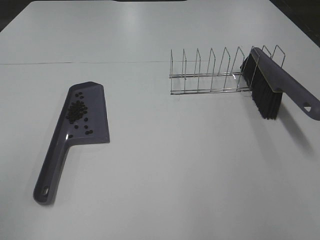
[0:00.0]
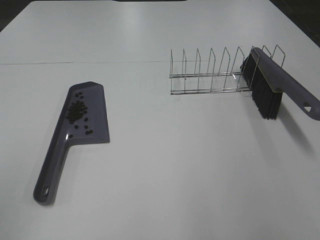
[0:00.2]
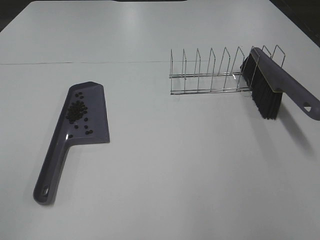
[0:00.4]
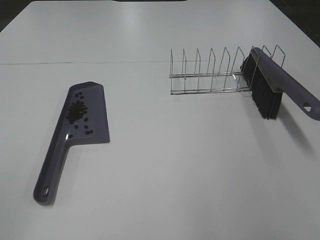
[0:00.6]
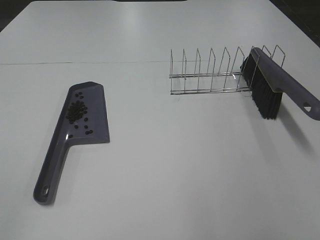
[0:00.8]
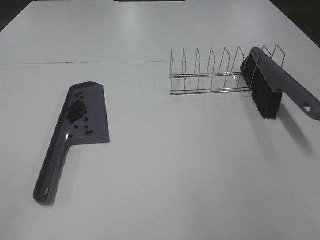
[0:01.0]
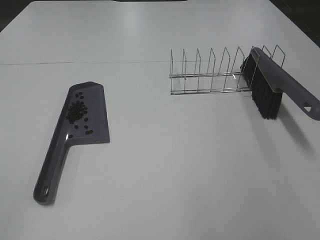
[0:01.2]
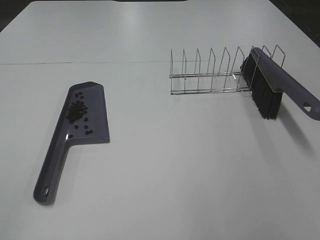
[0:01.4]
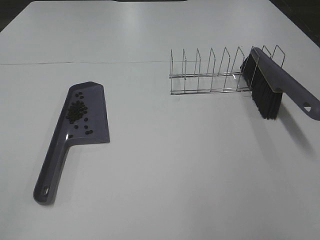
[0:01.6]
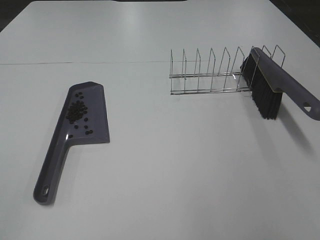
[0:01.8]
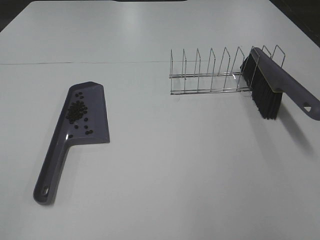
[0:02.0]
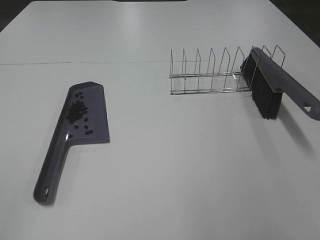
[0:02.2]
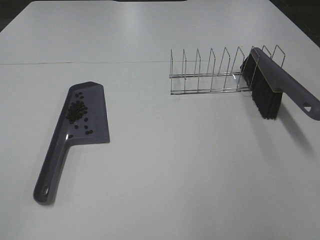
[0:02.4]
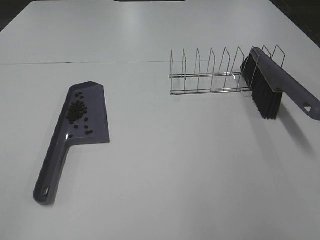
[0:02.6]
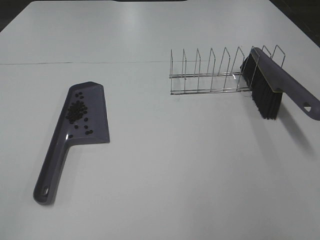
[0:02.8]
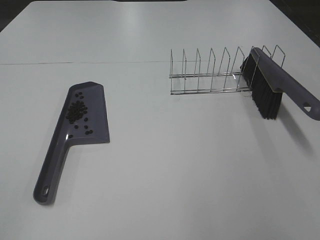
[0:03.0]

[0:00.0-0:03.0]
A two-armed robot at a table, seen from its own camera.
Task of the whole recording: Sweep Coffee Bean.
0:01.6 to 0:03.0: The two grippers keep their place.

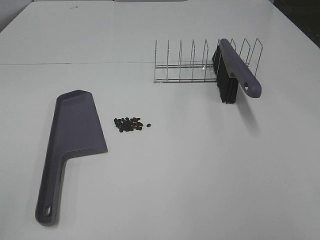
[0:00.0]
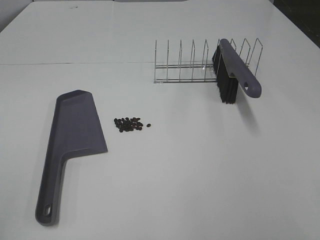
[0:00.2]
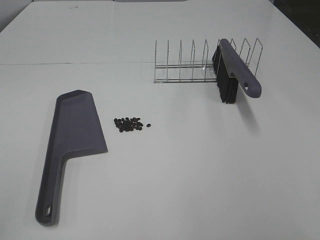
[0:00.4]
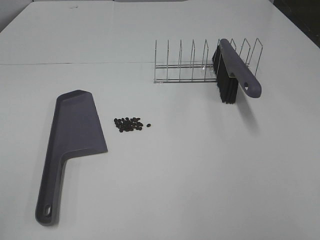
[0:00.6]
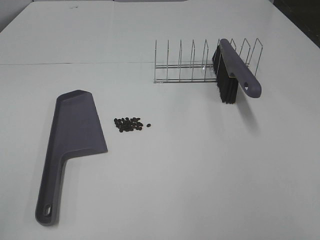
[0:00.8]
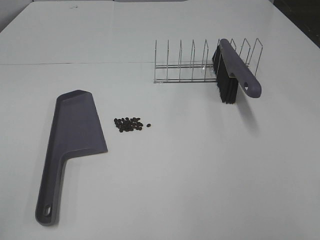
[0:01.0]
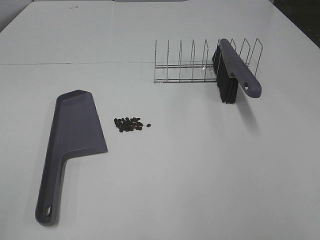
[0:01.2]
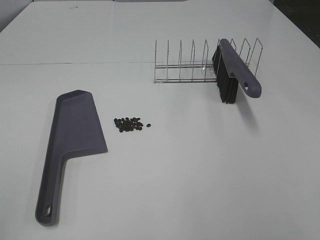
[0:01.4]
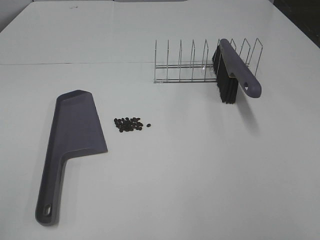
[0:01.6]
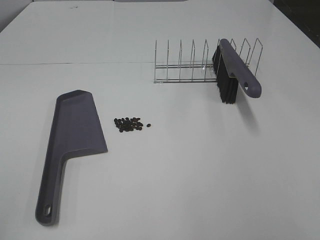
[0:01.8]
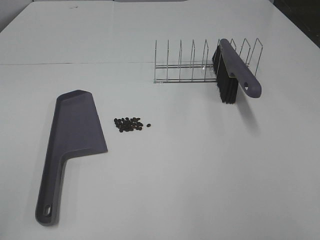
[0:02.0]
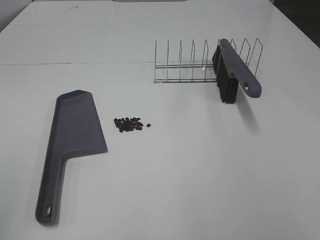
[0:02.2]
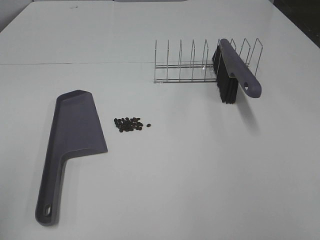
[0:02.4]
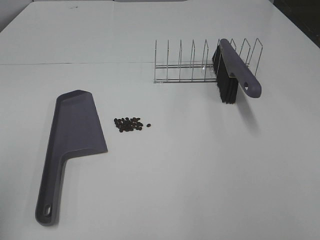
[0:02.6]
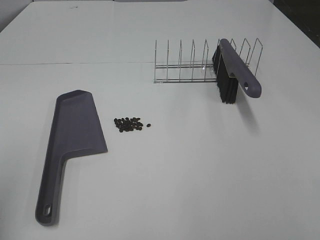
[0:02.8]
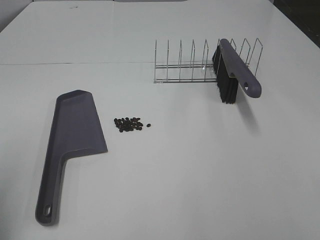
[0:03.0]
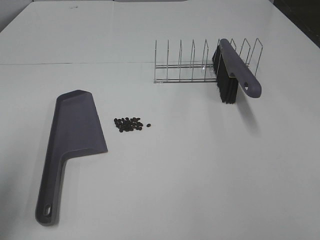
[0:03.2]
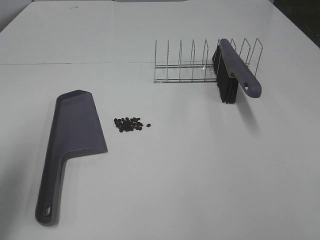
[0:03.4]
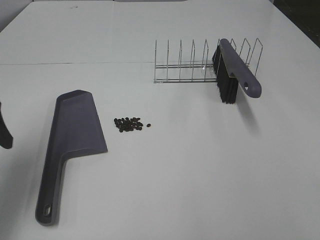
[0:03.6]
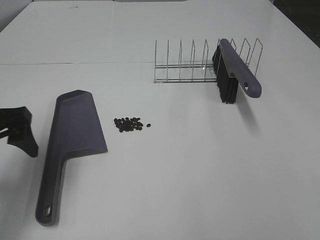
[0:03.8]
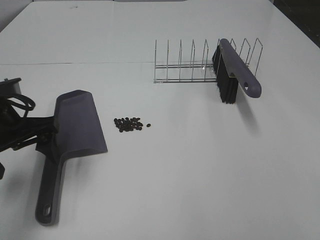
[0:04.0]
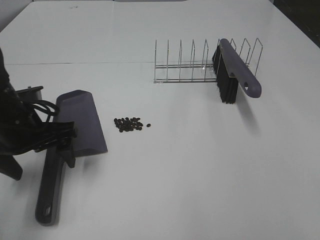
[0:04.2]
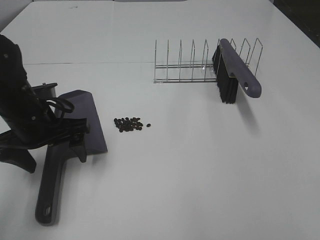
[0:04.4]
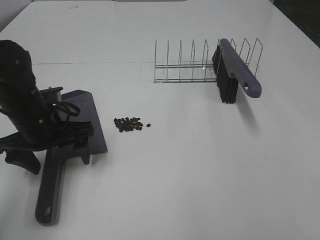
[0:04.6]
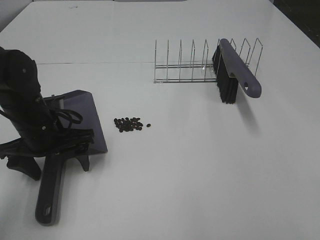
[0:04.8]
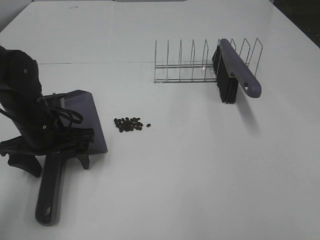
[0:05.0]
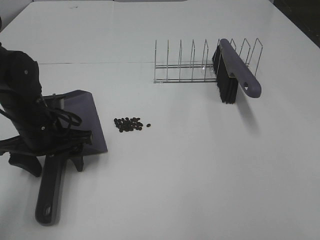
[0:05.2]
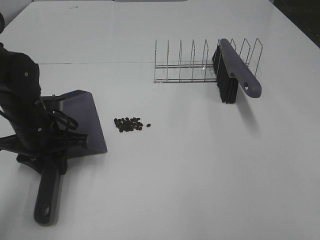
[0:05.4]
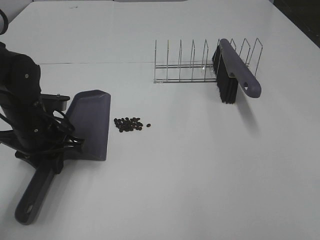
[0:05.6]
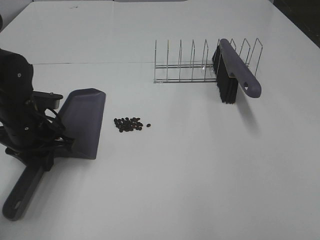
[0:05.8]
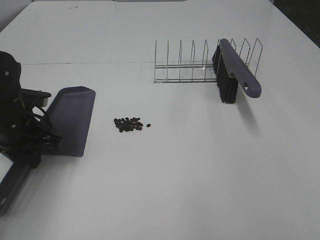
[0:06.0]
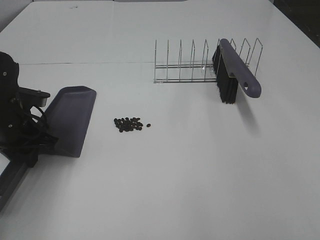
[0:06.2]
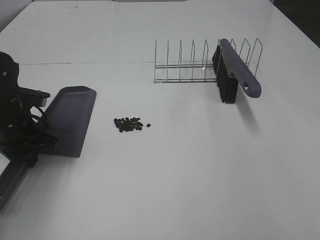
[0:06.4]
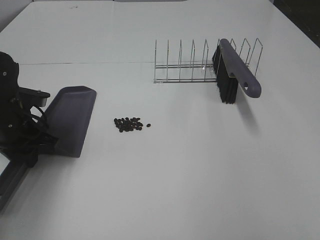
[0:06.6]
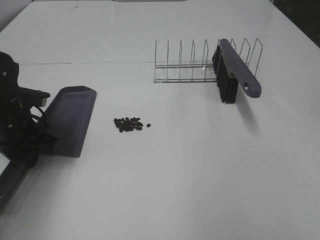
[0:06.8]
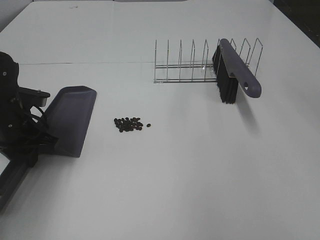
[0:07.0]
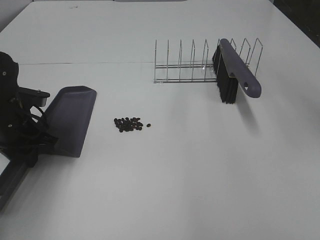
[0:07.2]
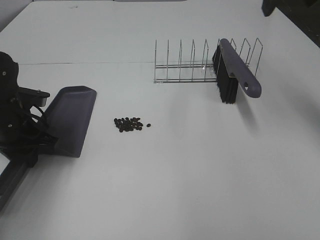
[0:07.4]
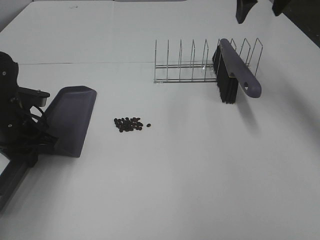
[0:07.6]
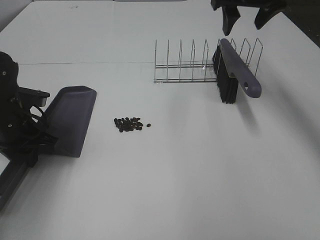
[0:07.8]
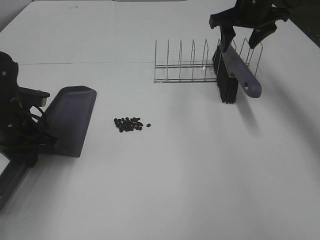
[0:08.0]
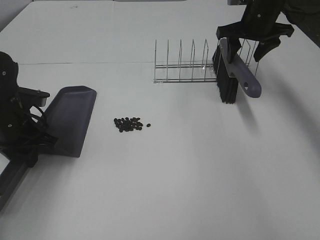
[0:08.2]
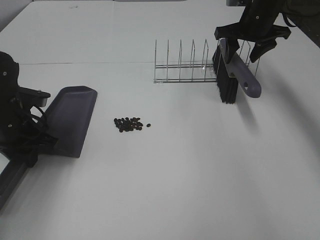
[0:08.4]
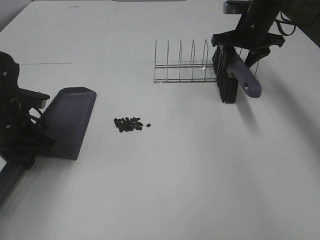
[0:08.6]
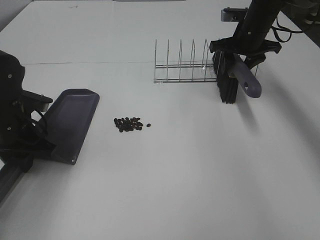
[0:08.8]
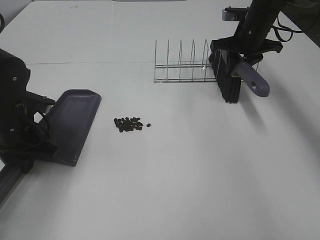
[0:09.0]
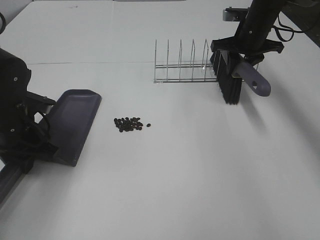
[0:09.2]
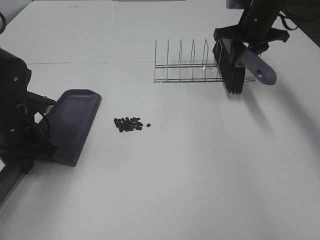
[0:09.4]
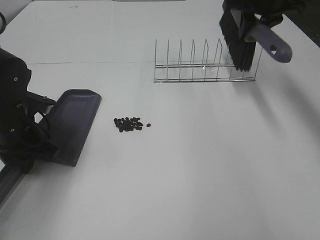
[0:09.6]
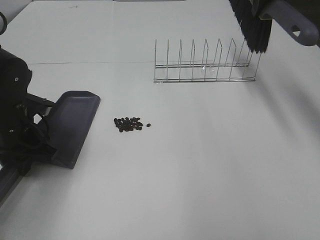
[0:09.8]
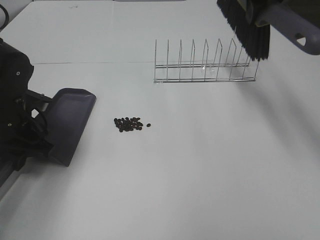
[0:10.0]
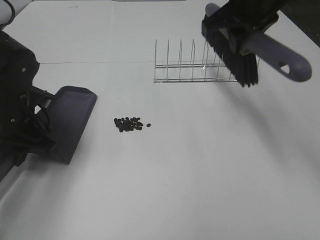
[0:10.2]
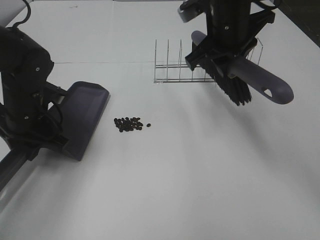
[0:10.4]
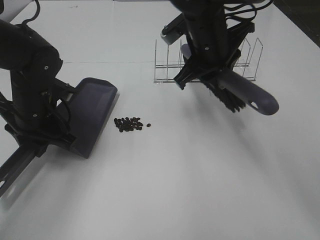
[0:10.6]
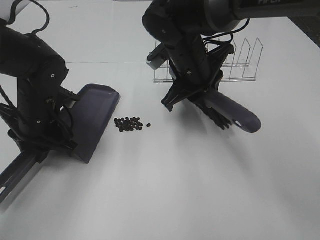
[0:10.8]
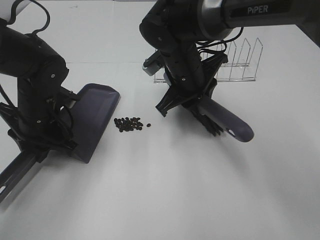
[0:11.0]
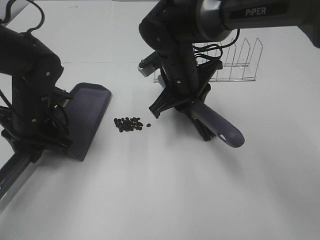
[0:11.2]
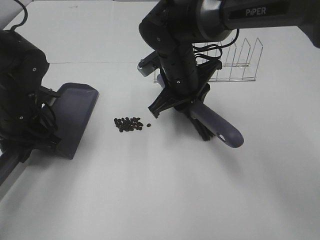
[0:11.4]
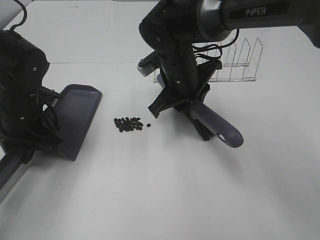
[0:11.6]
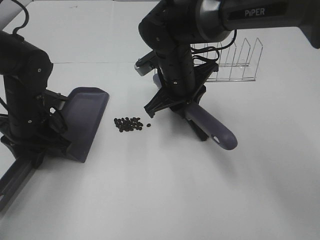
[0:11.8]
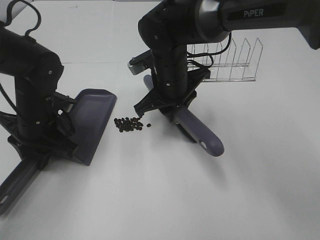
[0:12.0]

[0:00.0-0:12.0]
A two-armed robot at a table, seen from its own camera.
Task of the whole recording: Sweep Coffee Bean.
Step, 0:00.0 to 0:05.4: Left hand: grab the dustpan.
Step, 0:05.6 to 0:09.0: Right hand:grab the broom.
0:00.0 to 0:01.6: Both grippers stay put.
0:03.0 to 0:04.4: The left gripper is displaced forward, to the right and downward by approximately 25 cm.
0:04.4 to 0:06.0: The left gripper moves some 5 cm, and closes up.
0:06.0 to 0:07.6: The right gripper goes about 40 cm forward.
0:07.6 to 0:09.0: The right gripper heads downward and forward, covering roughly 20 cm, and closes its fingers.
0:09.0 to 0:10.4: The right gripper travels backward, to the left and upward by roughly 20 cm.
0:10.4 to 0:12.0: The right gripper goes some 15 cm downward and to the left.

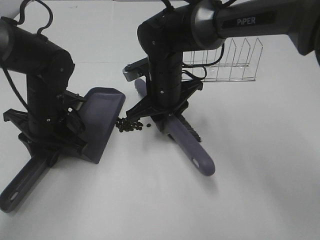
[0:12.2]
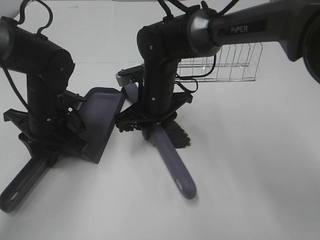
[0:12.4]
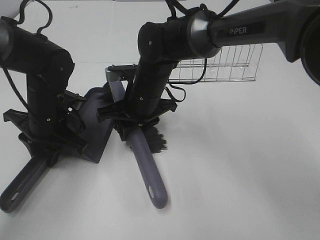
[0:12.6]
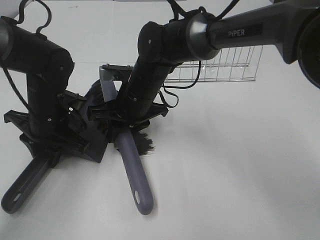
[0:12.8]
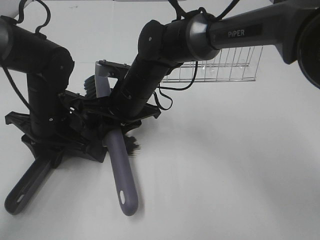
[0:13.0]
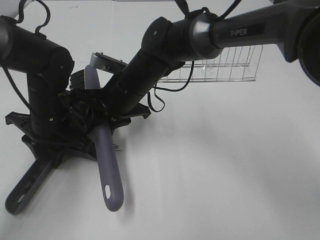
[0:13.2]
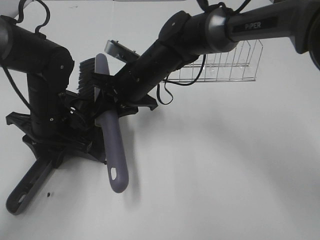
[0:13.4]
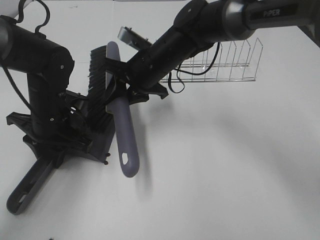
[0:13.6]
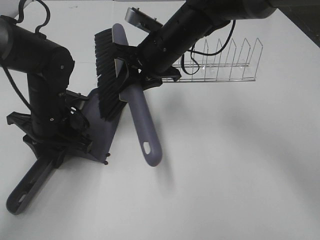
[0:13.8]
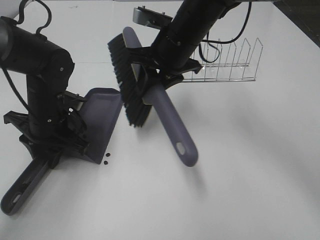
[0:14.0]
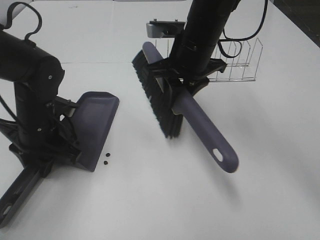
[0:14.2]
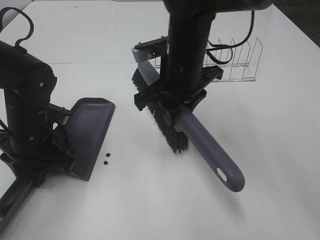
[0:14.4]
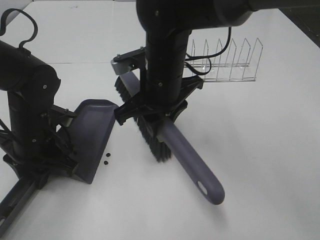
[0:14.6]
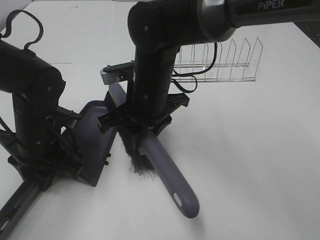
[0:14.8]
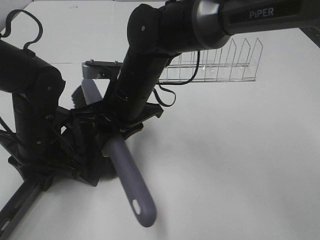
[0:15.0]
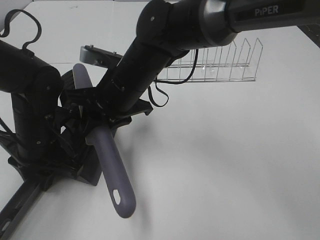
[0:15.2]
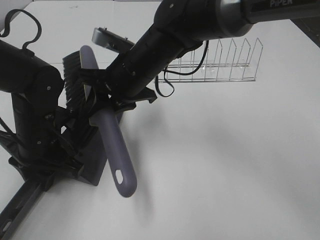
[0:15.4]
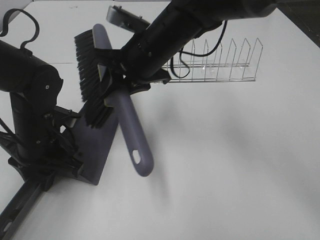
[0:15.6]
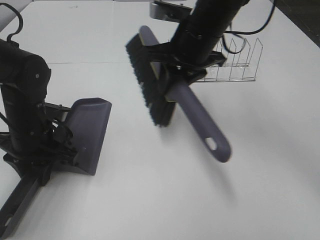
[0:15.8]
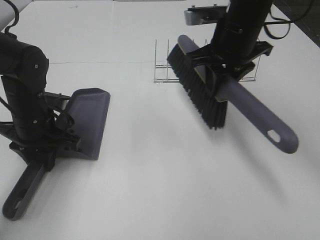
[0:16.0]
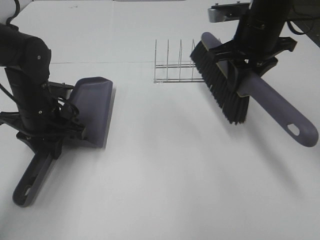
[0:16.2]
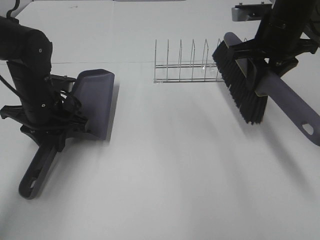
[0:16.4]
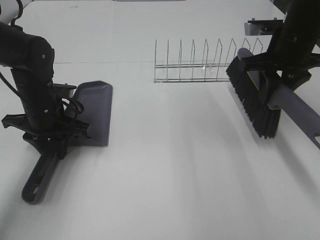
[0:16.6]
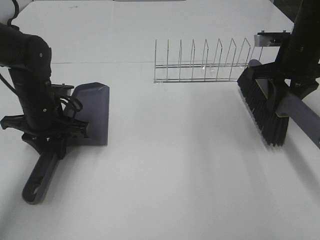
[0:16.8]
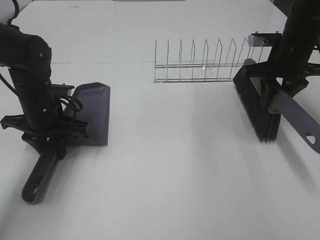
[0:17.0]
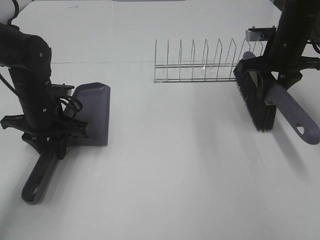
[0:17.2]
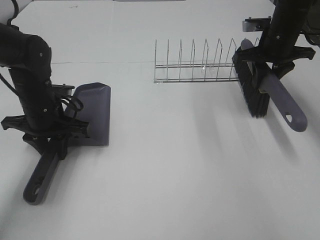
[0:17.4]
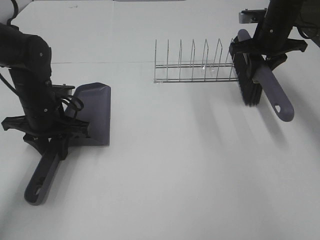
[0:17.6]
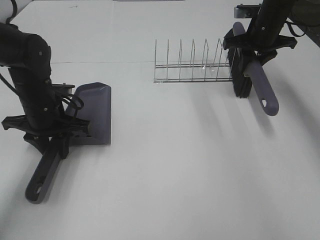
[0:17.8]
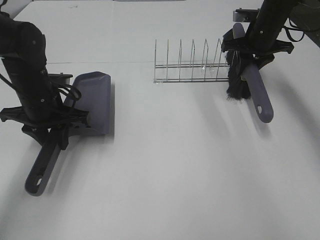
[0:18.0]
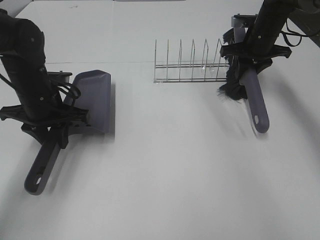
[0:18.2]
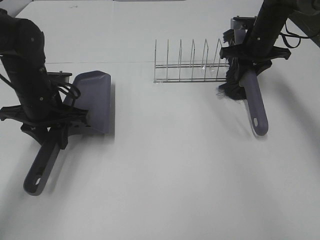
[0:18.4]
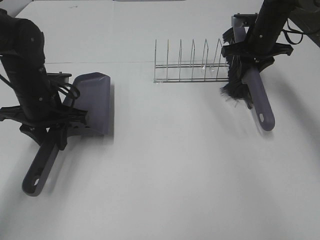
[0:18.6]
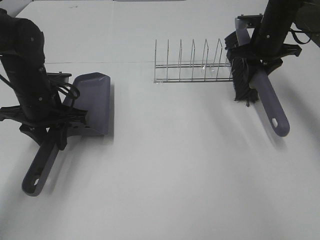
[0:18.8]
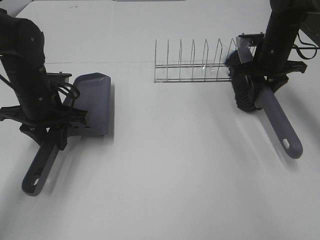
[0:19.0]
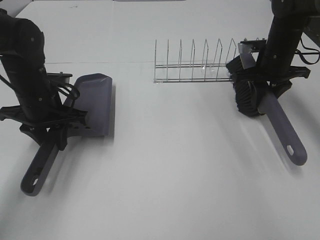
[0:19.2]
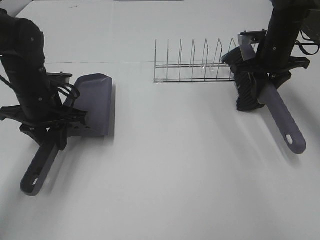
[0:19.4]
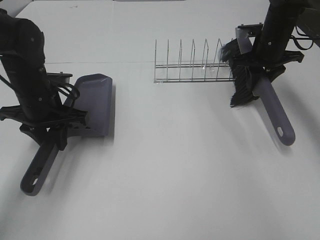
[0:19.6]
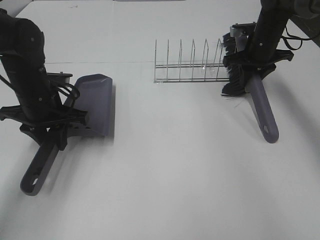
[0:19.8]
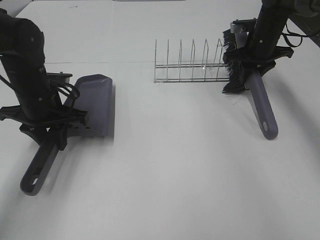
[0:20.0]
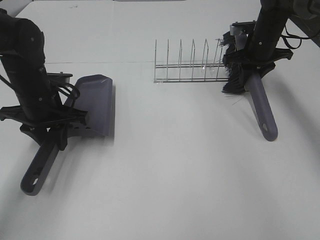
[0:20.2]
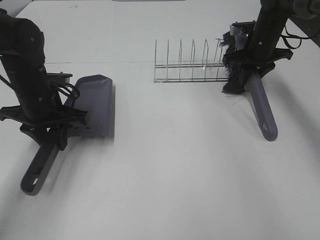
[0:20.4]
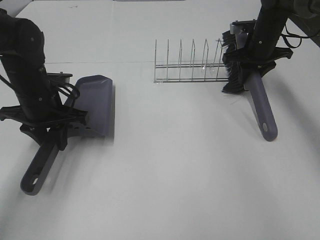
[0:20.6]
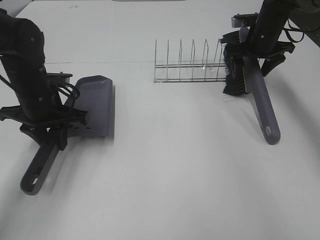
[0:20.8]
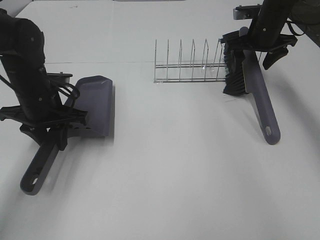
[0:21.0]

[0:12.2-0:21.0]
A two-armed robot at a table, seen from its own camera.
Task of the whole recording: Sweep Coffee Bean.
Step, 0:12.2 to 0:15.2: Right hand:sweep the coffee beans into the dustpan.
Step, 0:15.4 to 0:20.8: Right hand:place the broom on the rack.
0:13.6 to 0:15.2: The left gripper goes approximately 5 cm backward. Meanwhile the right gripper travels backward and to the left by some 10 cm.
0:15.2 to 0:16.6: The right gripper is displaced to the right by approximately 25 cm; the left gripper is displaced forward by roughly 5 cm.
0:16.6 to 0:18.0: The right gripper is displaced forward by about 15 cm.
0:19.6 to 0:21.0: The right gripper opens up.
